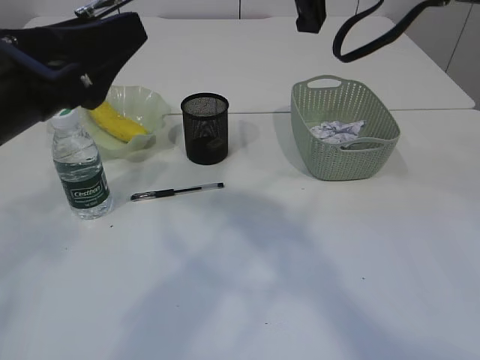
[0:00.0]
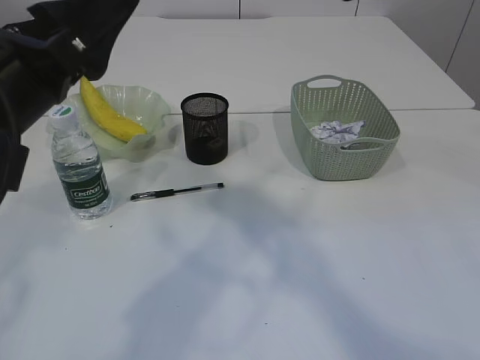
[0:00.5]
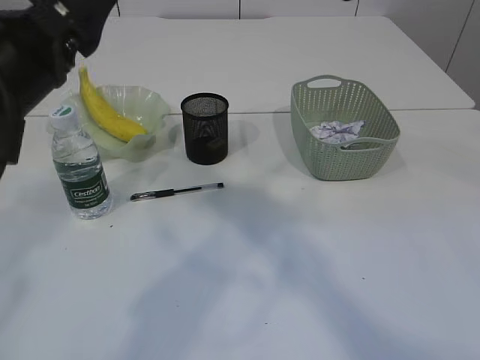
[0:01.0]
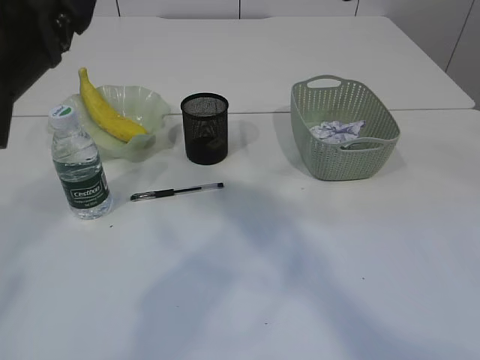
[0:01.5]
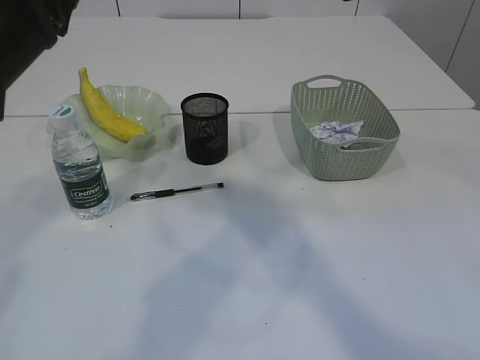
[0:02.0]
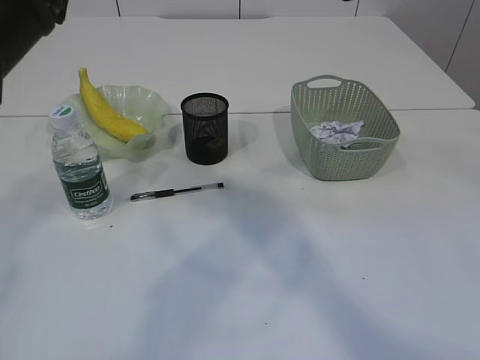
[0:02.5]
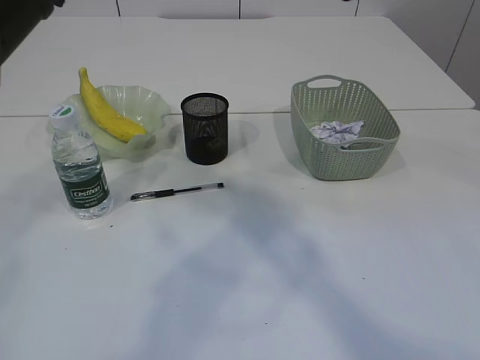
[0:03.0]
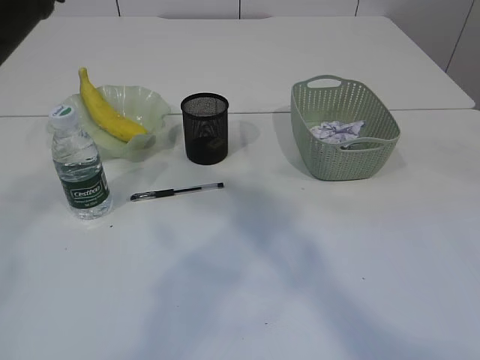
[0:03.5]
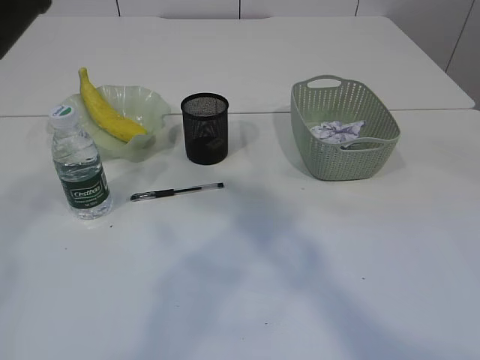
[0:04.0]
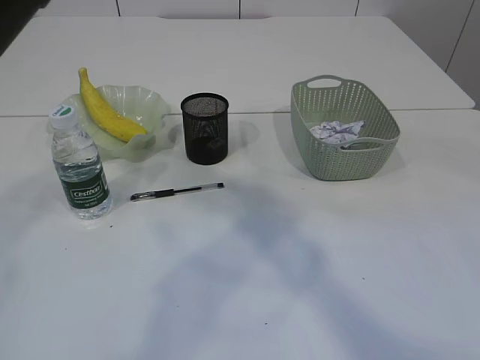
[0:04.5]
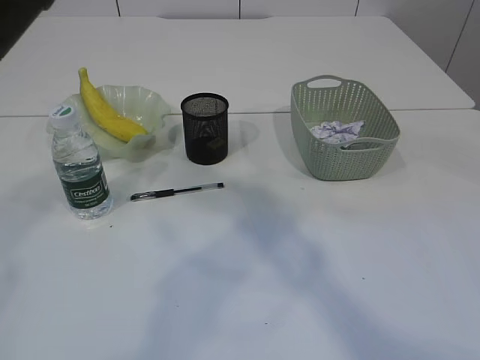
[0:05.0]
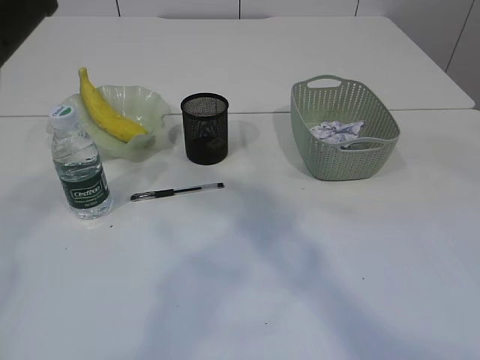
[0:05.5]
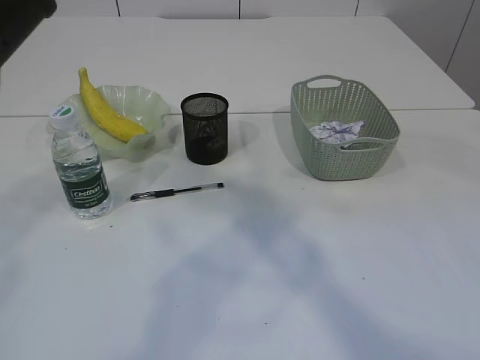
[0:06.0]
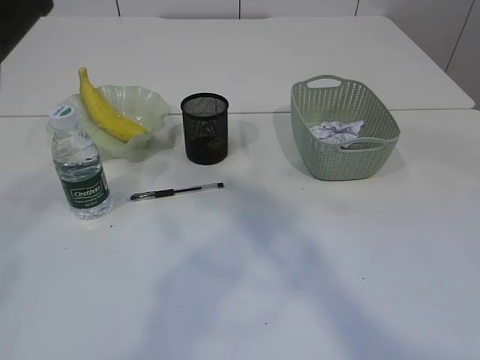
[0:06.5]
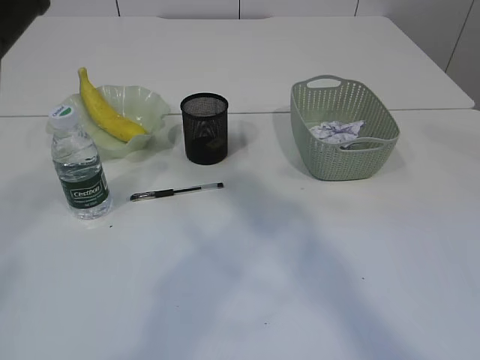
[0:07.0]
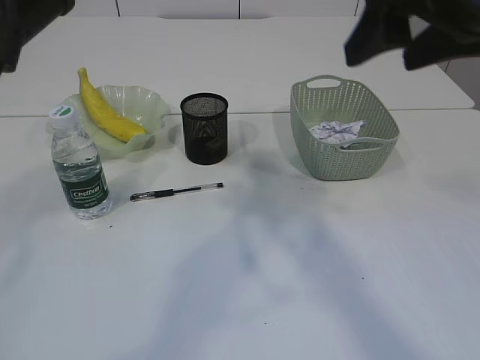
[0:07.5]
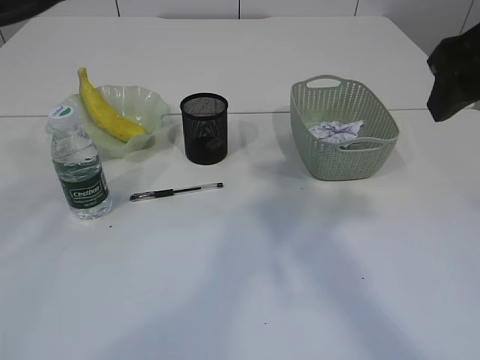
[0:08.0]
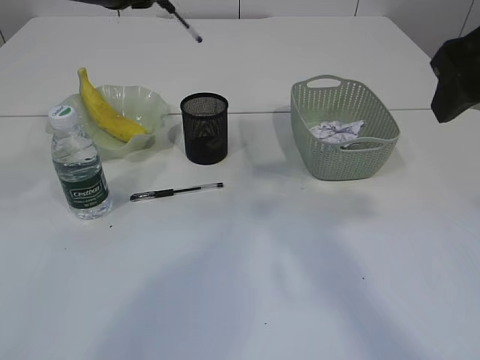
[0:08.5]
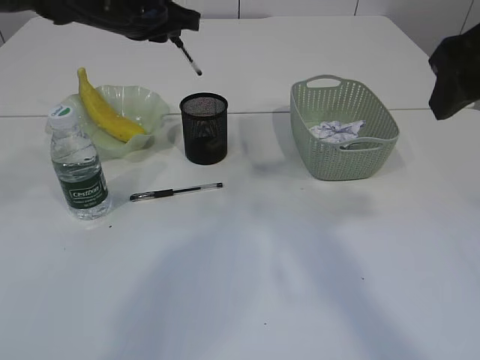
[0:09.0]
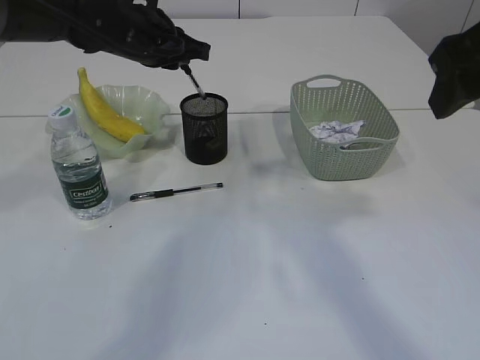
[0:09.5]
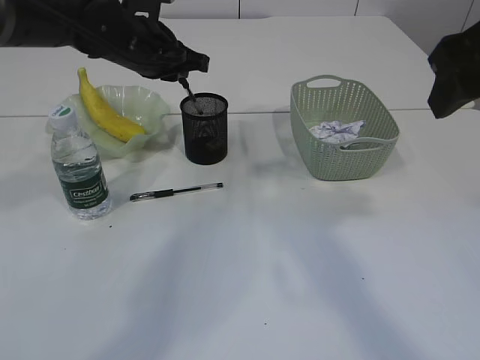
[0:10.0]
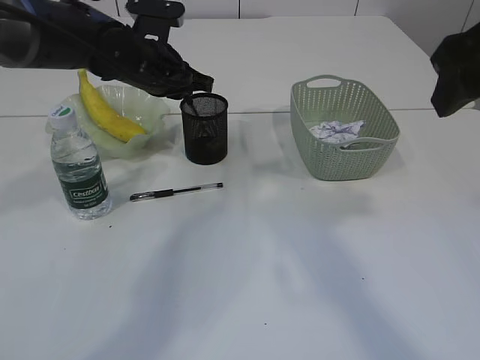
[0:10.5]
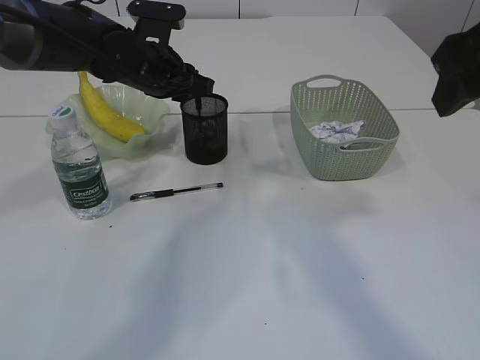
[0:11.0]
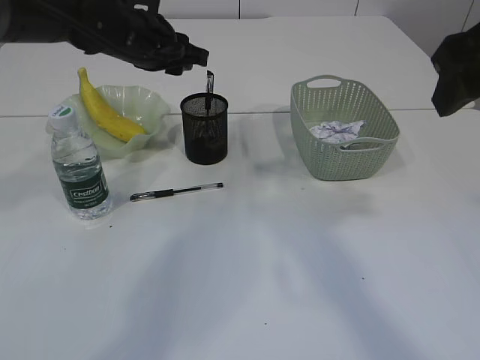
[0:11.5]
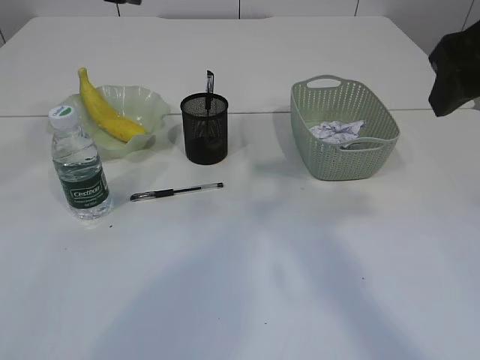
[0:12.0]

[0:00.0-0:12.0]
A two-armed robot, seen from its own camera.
Step, 0:00.0 to 0:07.5: transfer the pen to the left arm.
Step, 0:08.0 to 0:11.5: Place the pen into the pen holder.
0:02.0 to 0:04.0: The left gripper closes up.
0:06.0 to 0:08.0: The right gripper heads to the right and downward, covering roughly 15 cm, while the left gripper heads forward, covering some 5 cm.
0:08.0 to 0:10.0: The left gripper shifts some 20 cm forward and downward.
0:10.0 to 0:12.0: The left gripper shifts roughly 10 cm upward and backward.

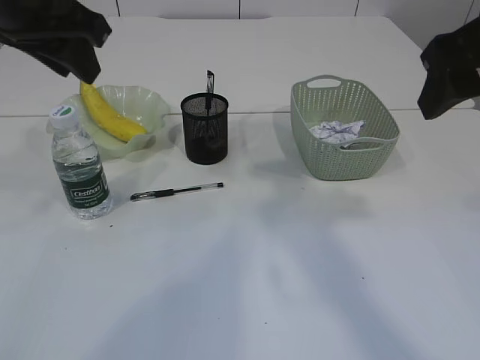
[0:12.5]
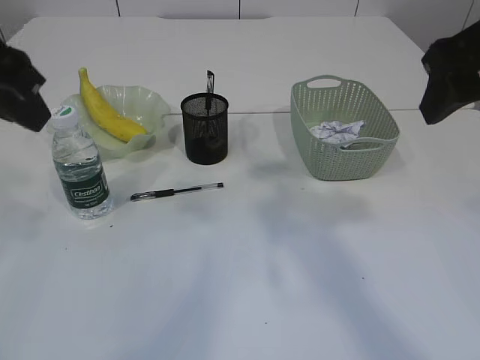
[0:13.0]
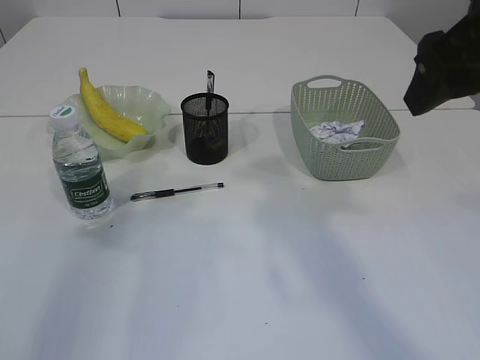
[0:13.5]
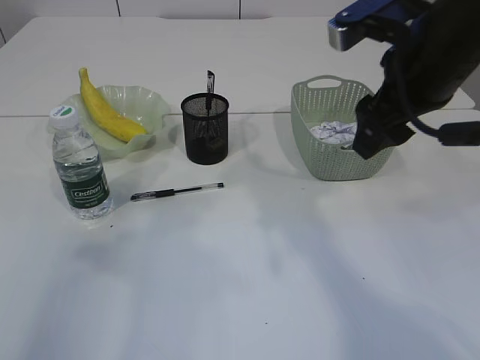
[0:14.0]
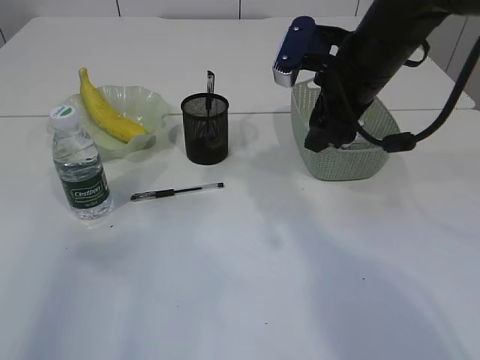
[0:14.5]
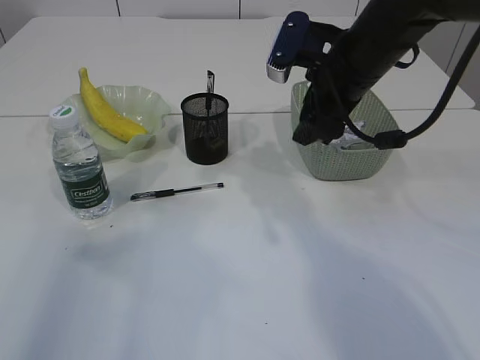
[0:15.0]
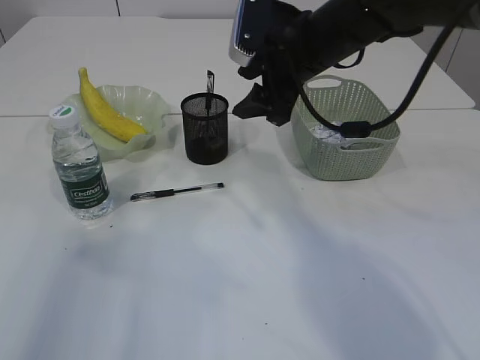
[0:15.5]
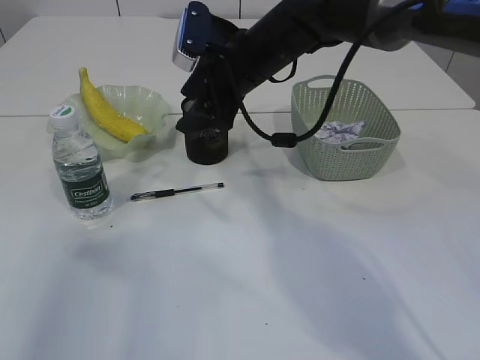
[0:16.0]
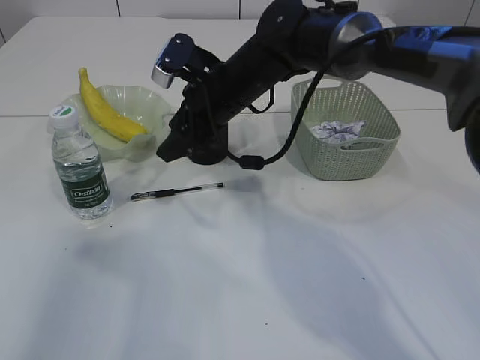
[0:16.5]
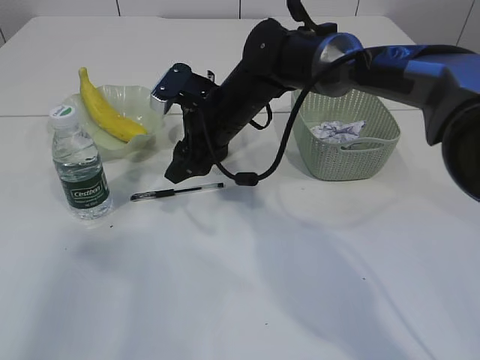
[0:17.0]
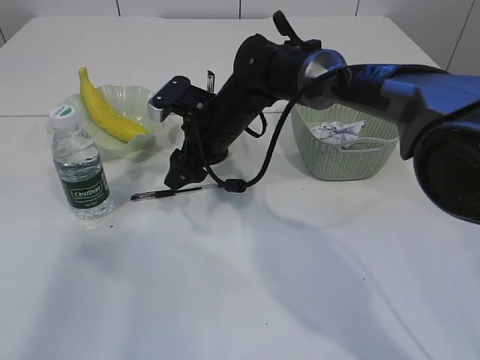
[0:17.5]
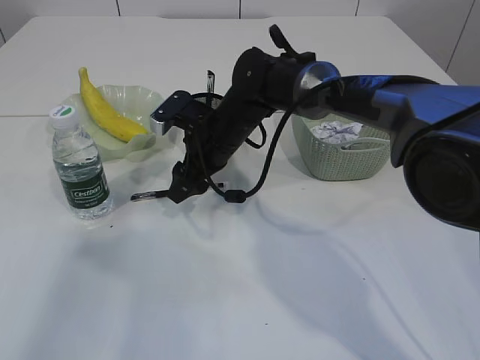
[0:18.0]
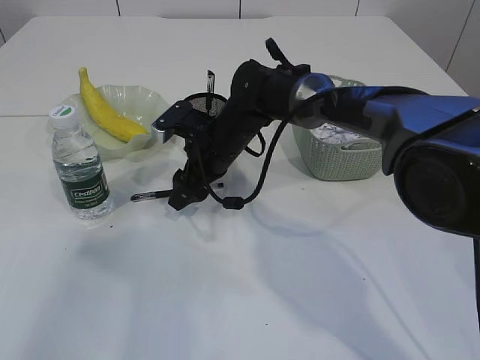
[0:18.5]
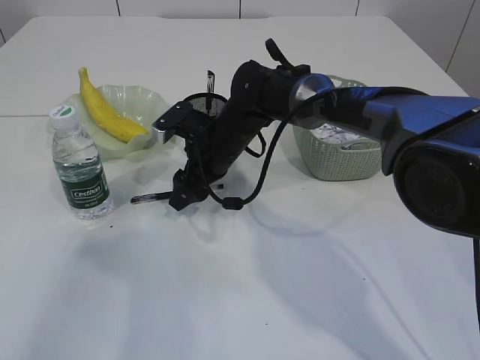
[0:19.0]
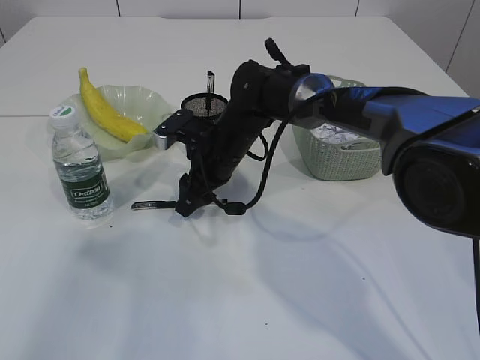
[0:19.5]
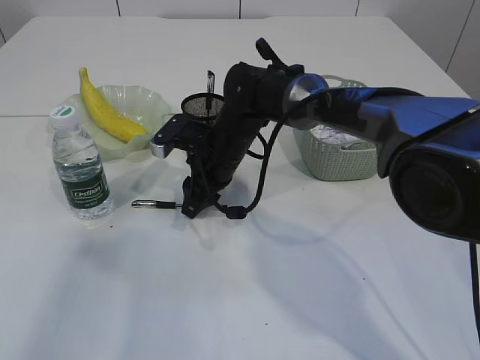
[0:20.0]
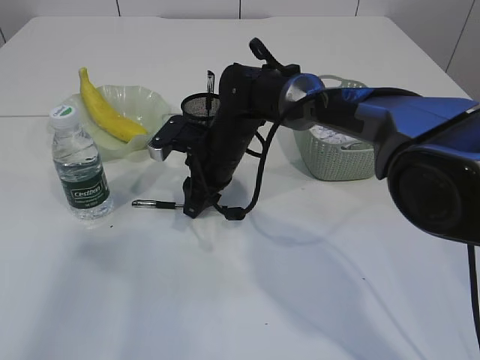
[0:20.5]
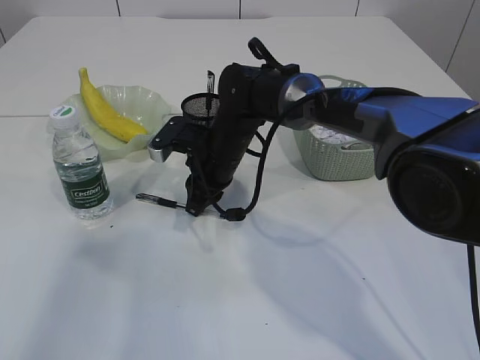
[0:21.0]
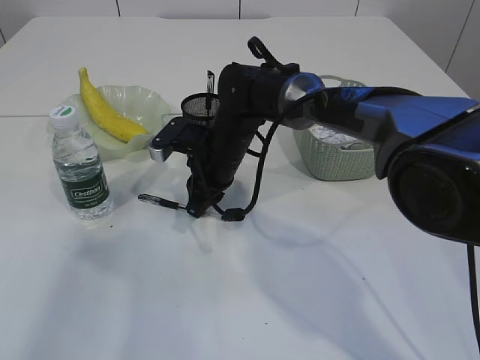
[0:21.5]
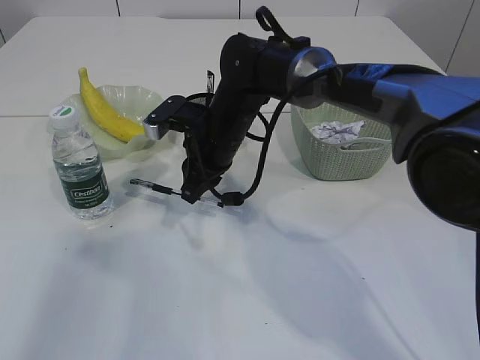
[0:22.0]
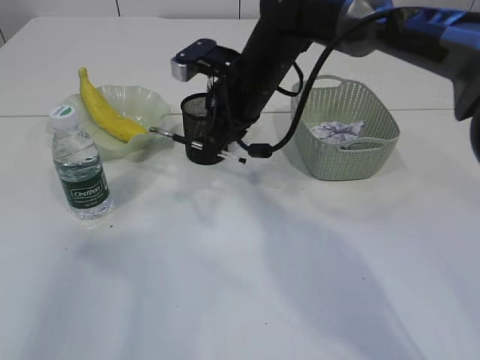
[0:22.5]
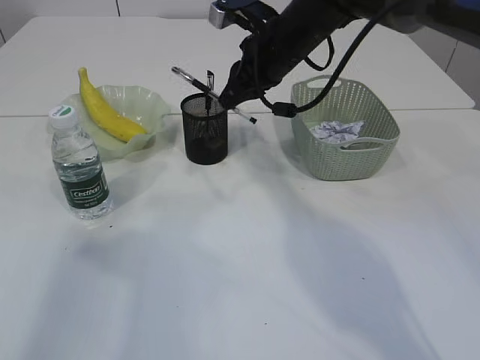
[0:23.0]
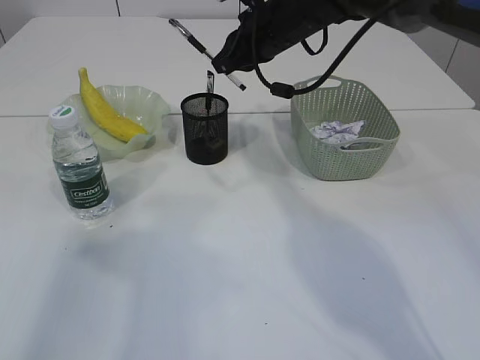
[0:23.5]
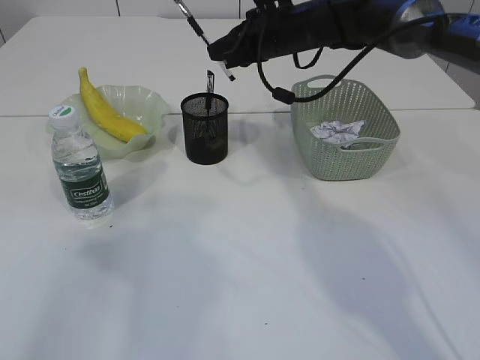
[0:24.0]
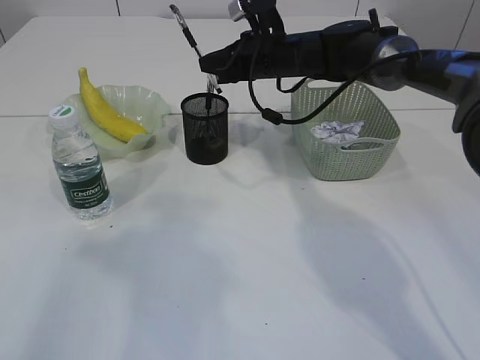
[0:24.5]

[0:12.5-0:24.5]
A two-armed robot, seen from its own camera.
Step, 0:12.5 to 0:22.0: Pick up the pen with right arm.
0:12.5 to 0:14.5: The left gripper travels backward and to the left by approximately 20 cm. Meanwhile the right gripper shifts approximately 15 cm forward, downward and to the left.
0:14.5 to 0:16.5: The right gripper travels to the left, forward and downward by approximately 15 cm.
0:16.5 to 0:18.5: The right gripper moves downward, approximately 10 cm.
0:18.5 to 0:20.5: The right gripper closes up.
0:20.5 to 0:22.5: The right gripper shifts about 10 cm upward.
0:22.5 to 0:24.5: The right gripper goes about 10 cm forward.

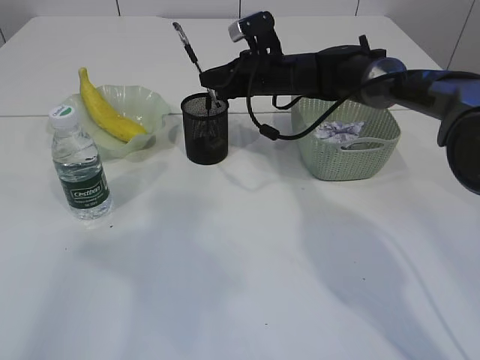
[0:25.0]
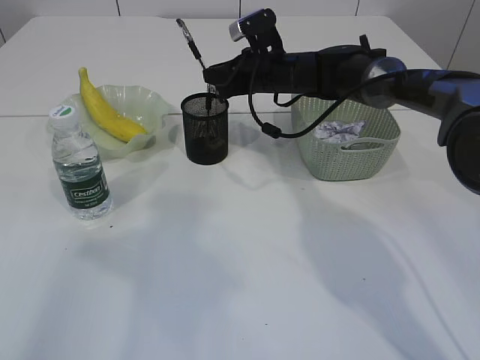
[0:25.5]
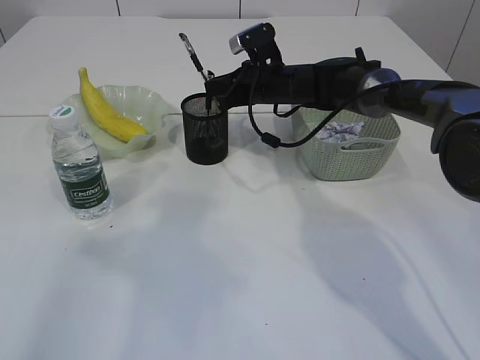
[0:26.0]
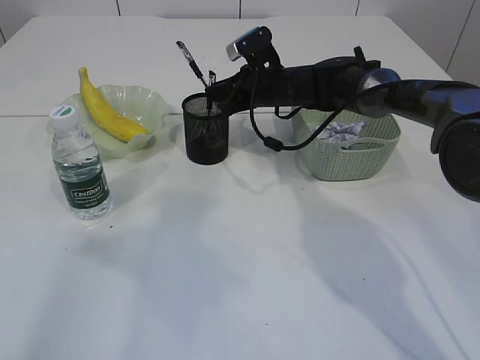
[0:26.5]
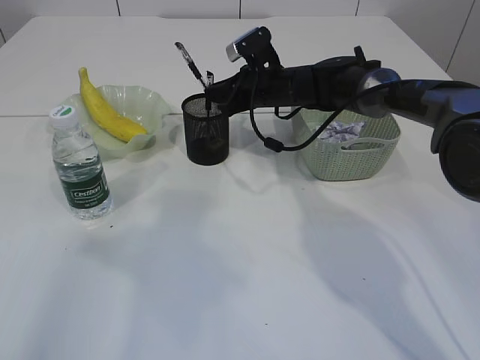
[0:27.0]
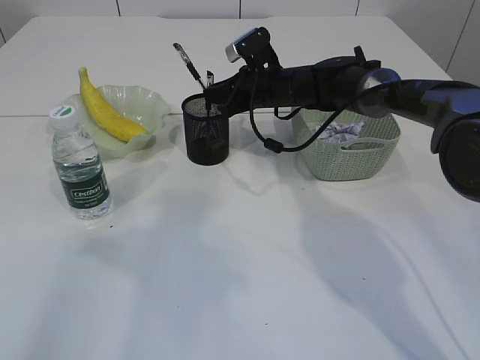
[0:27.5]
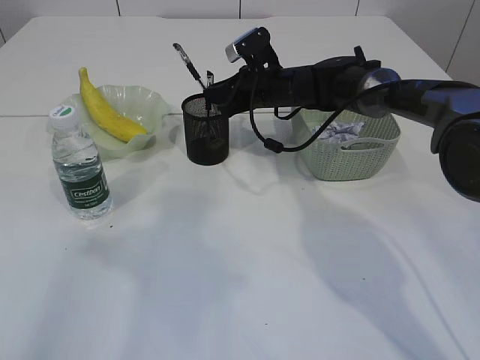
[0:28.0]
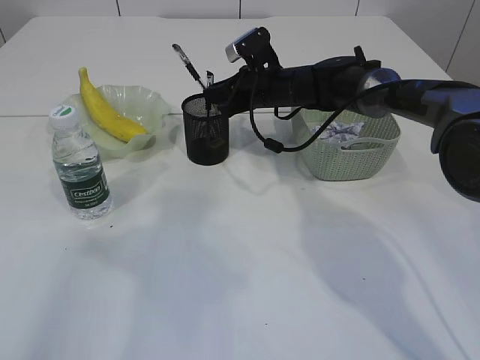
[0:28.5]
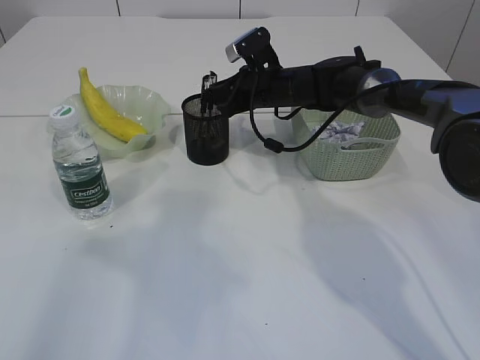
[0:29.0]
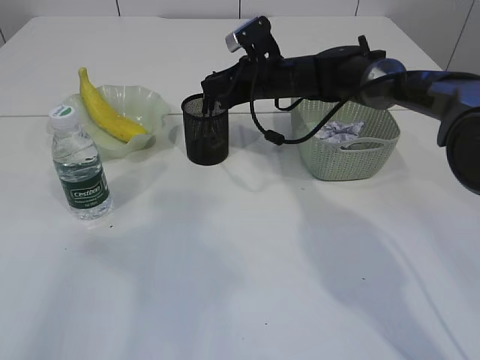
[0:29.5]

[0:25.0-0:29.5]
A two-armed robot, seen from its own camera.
0:25.0 to 0:27.0: The grippers stay close to where they were, moving slightly.
0:27.0 to 0:29.5: Both grippers stay put.
